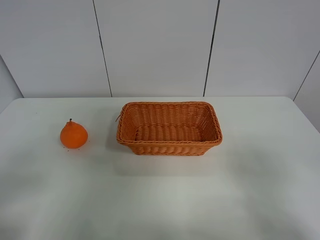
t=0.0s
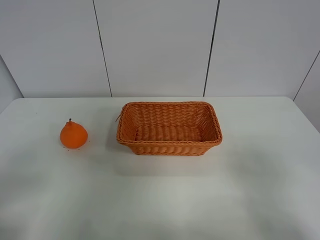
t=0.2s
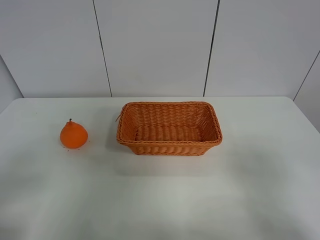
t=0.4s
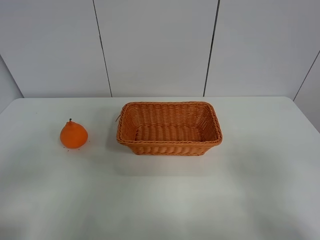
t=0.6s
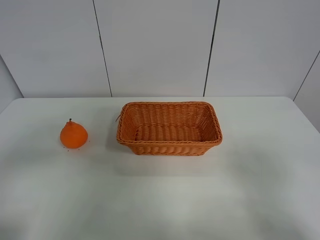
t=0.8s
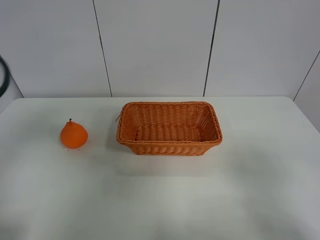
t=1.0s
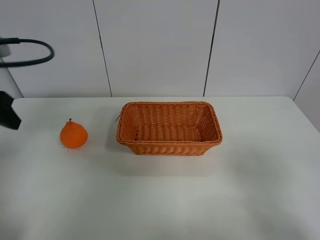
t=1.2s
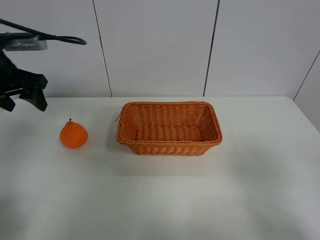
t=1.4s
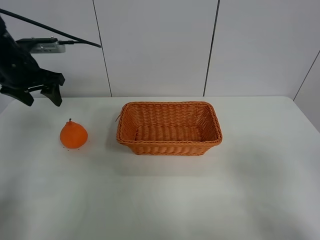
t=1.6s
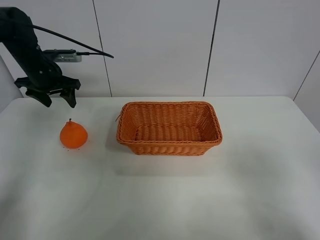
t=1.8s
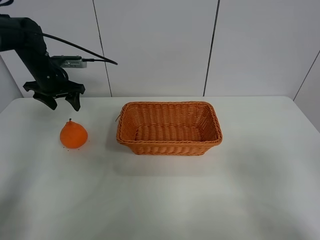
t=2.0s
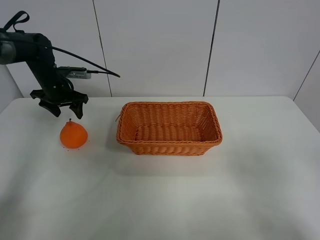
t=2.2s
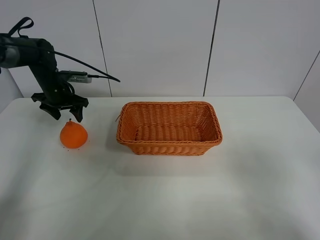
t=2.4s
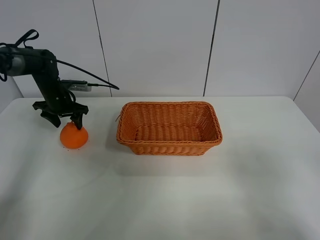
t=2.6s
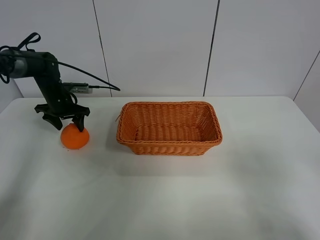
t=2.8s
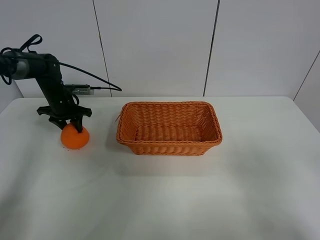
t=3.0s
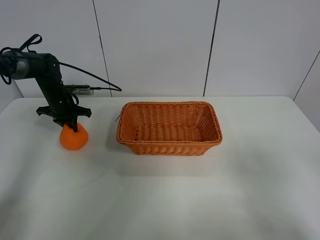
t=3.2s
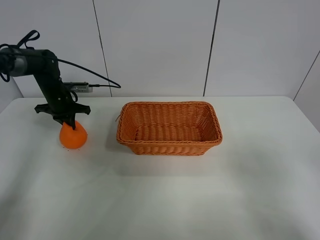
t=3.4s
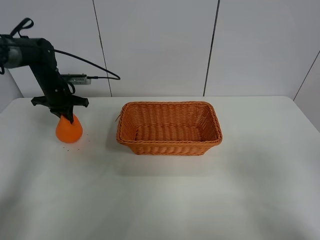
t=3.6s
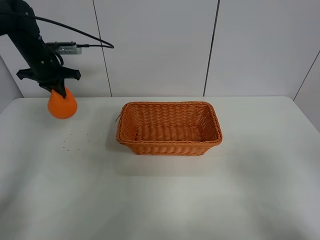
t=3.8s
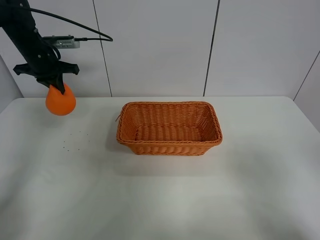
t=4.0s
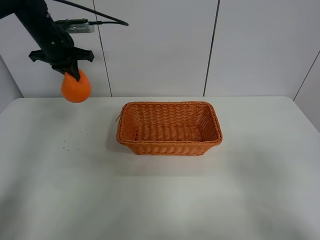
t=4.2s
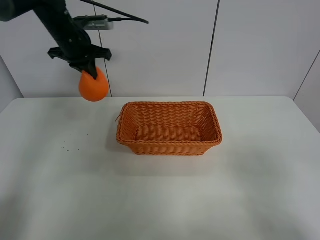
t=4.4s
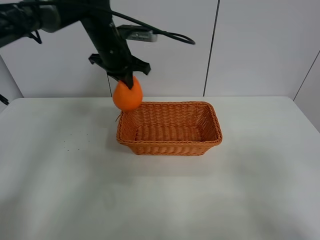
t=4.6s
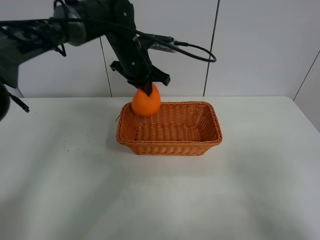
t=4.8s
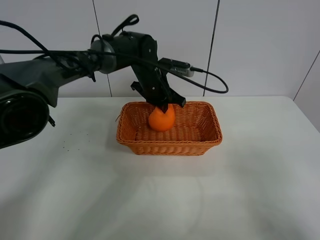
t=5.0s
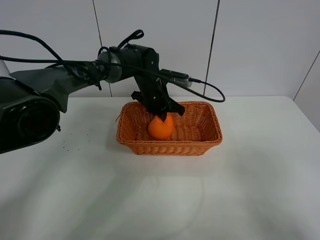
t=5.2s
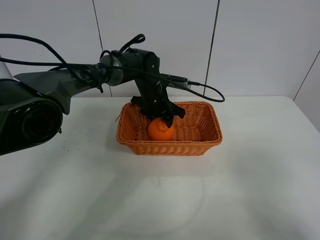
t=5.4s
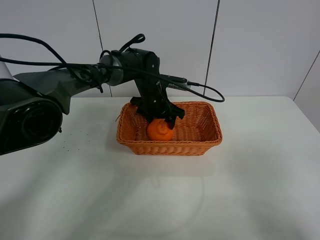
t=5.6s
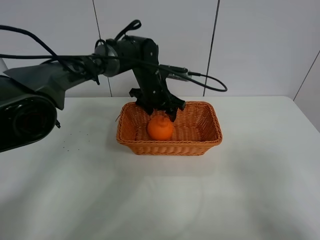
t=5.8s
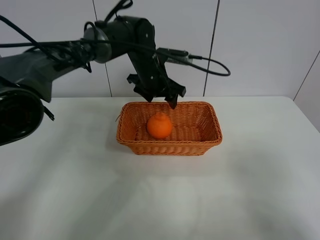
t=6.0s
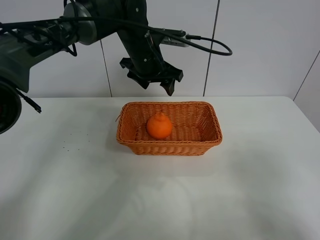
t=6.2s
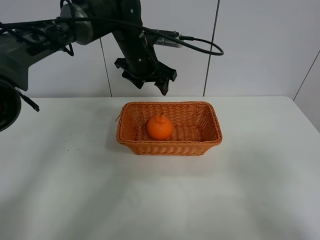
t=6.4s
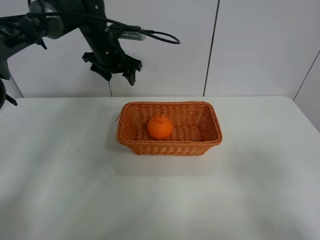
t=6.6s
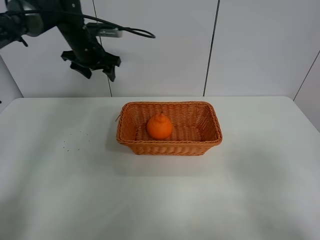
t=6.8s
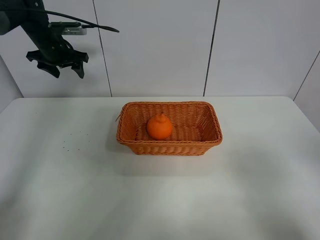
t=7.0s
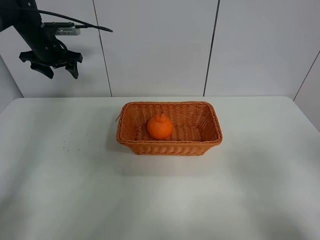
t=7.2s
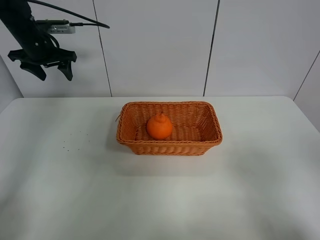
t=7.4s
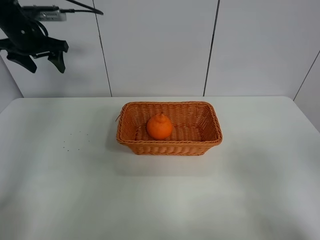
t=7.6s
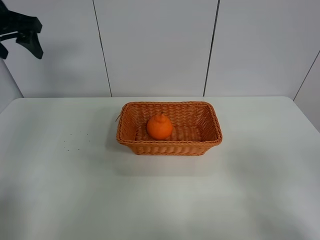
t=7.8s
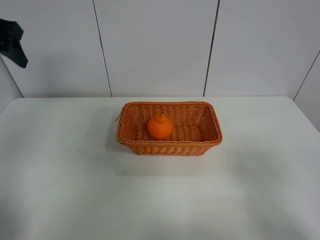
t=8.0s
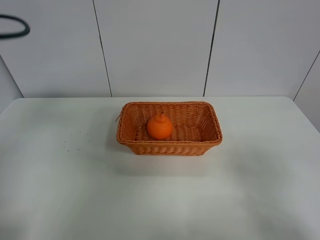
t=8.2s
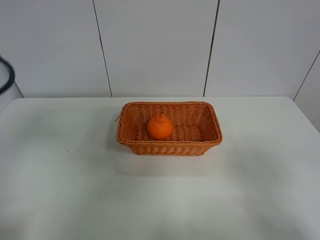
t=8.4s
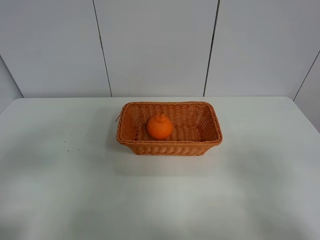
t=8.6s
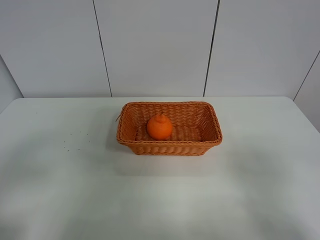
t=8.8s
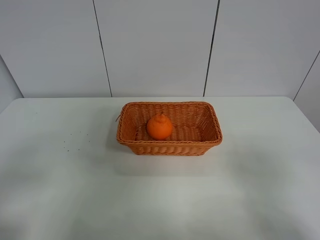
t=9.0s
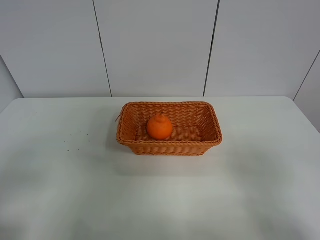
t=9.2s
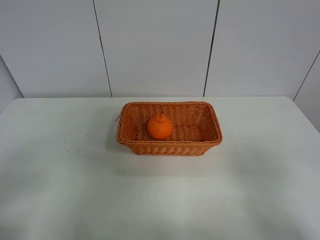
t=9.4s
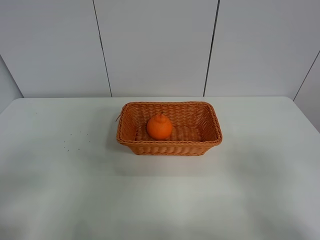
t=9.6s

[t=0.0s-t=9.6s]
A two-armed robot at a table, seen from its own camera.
Task of the whole recording: left gripper grabs oranges and puts them in the basket.
Step, t=0.0s to t=3.2s: Grasp the orange with left gripper.
Step, t=3.4s to t=6.6s: Place the orange in the basket with left gripper.
t=0.0s to t=1.6s: The left gripper is displaced forward by some 40 cm.
t=1.6s to t=3.2s: The left gripper moves downward and forward, about 20 cm, and closes its fingers.
t=3.2s to t=4.8s: The left gripper goes some 30 cm to the right and upward.
t=4.8s to t=6.4s: The left gripper travels downward and back again, about 10 cm each way, and opens up.
t=6.4s to t=8.0s: The left gripper shifts approximately 30 cm to the left, backward and upward.
t=8.0s to t=9.6s: The left gripper goes roughly 30 cm backward and downward.
